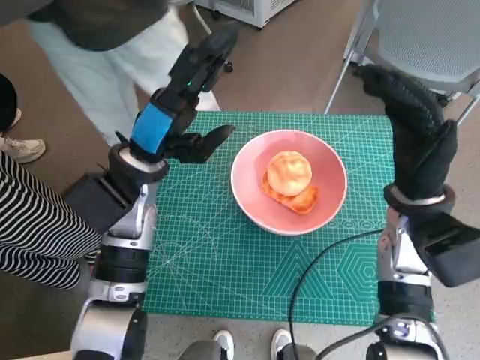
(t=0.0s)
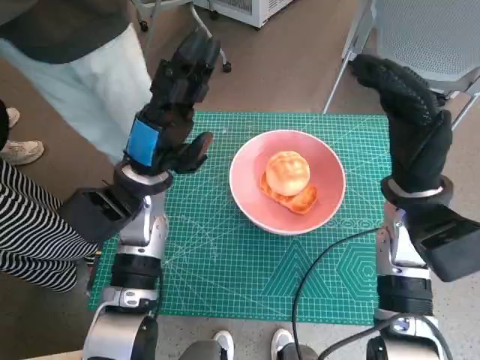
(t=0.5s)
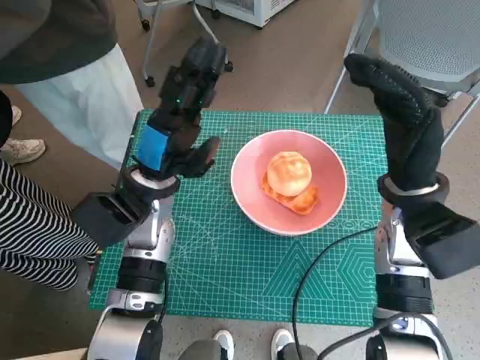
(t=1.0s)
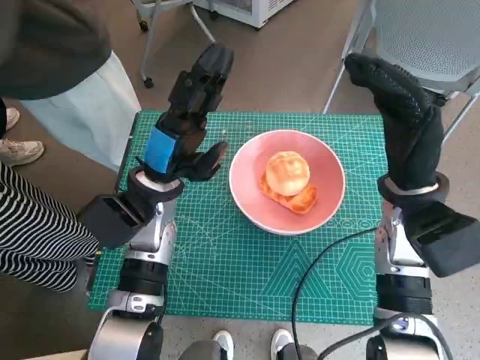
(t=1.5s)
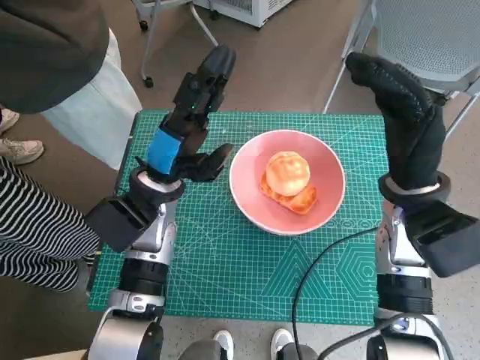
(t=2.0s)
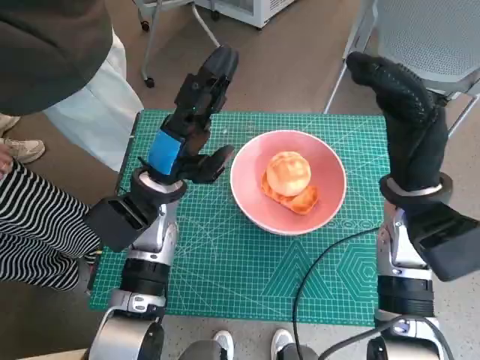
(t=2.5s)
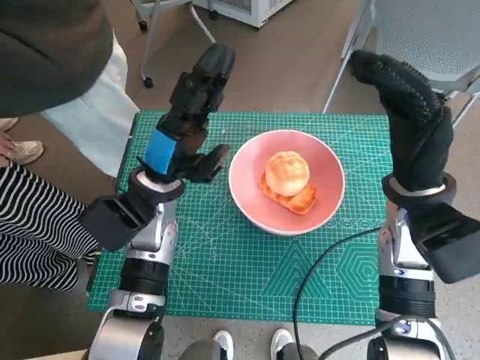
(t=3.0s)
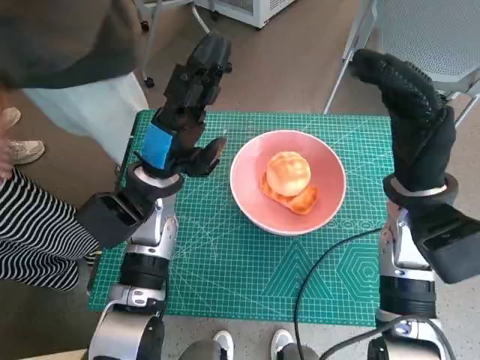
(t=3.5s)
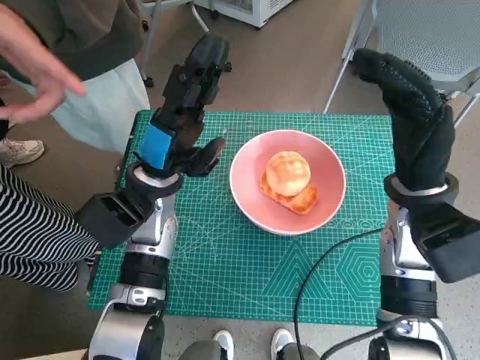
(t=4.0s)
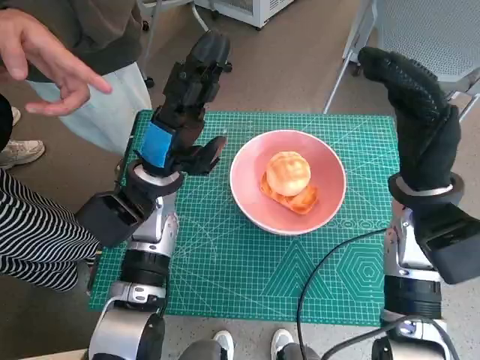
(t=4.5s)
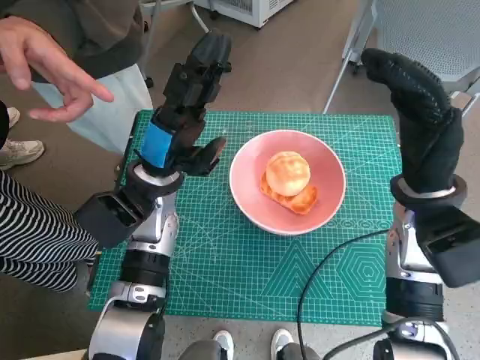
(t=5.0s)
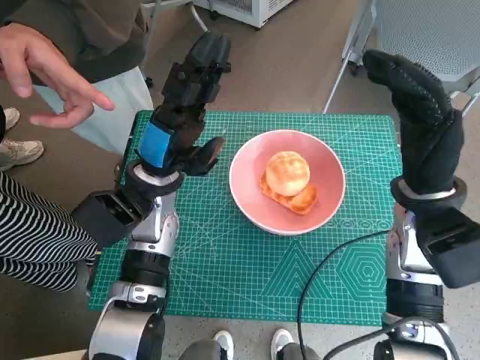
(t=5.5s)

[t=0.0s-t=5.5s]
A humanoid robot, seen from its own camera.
Task of the whole recording: Push the bowl into the center of the table and put the bread into the bowl.
t=2.0s to t=3.5s: The two hands keep their place.
t=3.5s to t=5.5s: Neither hand changes place.
